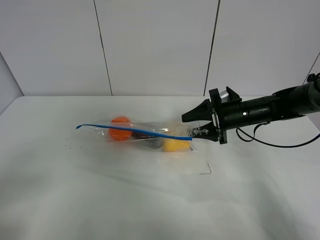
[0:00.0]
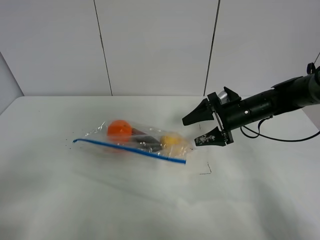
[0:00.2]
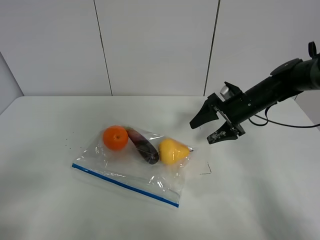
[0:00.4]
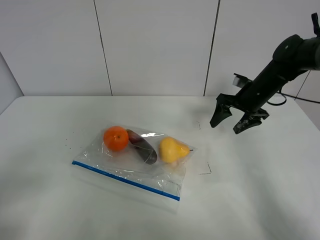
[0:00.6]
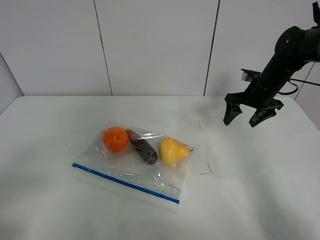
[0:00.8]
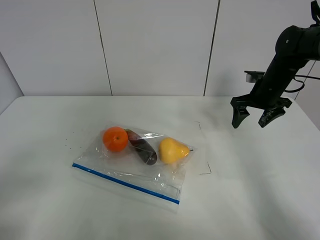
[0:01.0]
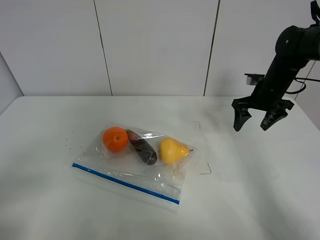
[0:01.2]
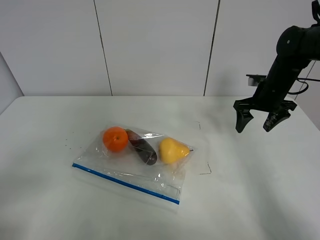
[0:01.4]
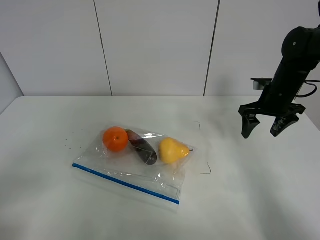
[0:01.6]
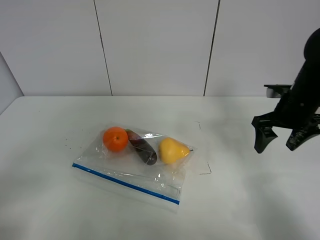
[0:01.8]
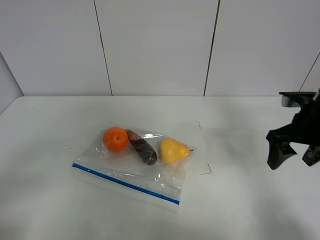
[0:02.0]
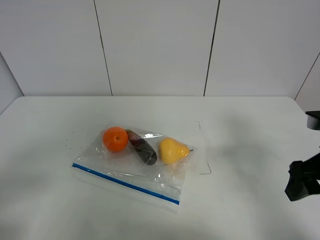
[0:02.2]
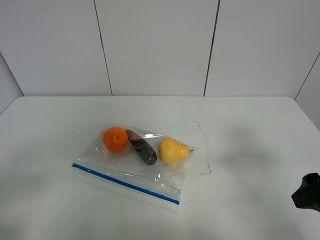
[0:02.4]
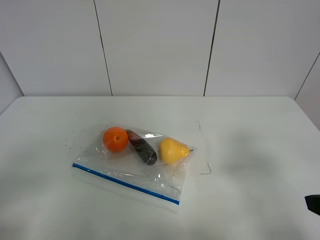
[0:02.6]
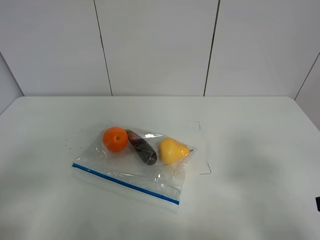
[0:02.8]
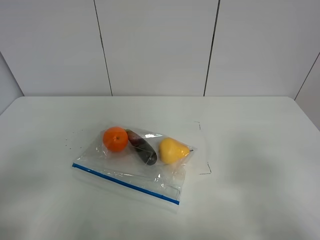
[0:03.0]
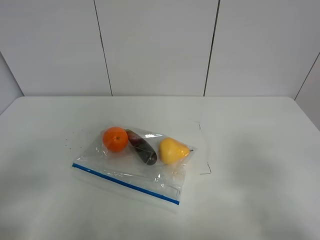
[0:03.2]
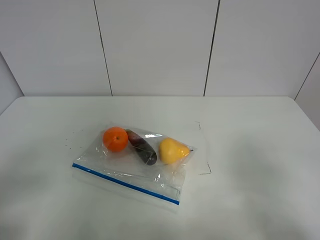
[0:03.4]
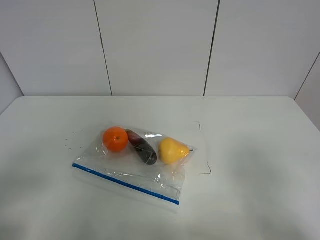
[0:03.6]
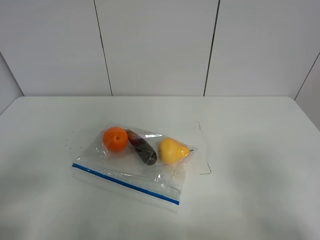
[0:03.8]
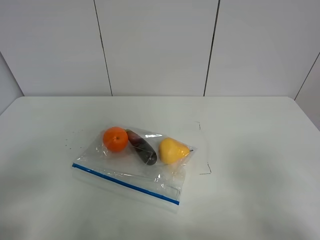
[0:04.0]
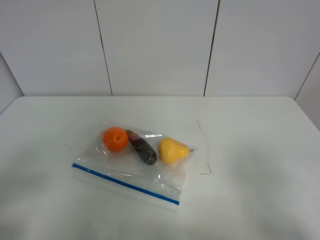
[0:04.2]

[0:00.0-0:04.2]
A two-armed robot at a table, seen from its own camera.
0:00.0 to 0:01.4: The right gripper goes about 10 cm to the right and upward.
0:01.4 to 0:02.8: The right gripper shifts about 35 cm backward.

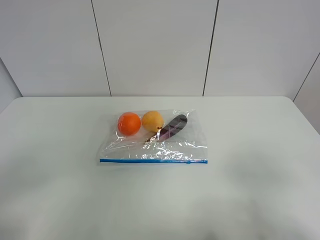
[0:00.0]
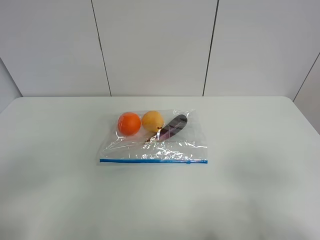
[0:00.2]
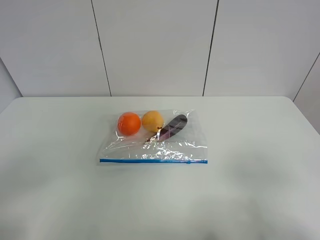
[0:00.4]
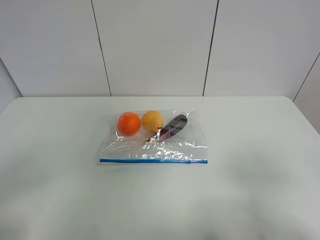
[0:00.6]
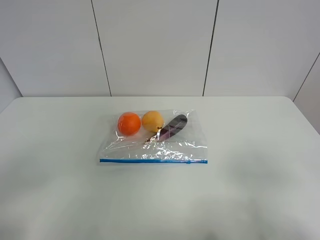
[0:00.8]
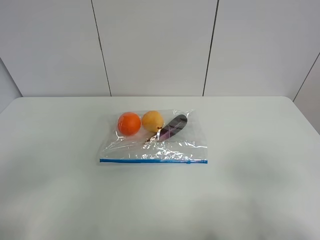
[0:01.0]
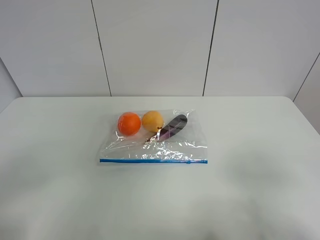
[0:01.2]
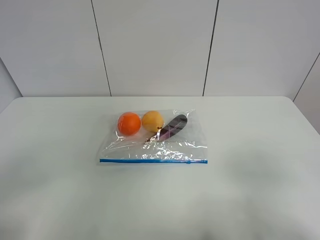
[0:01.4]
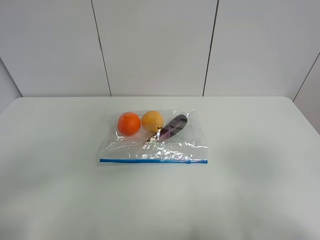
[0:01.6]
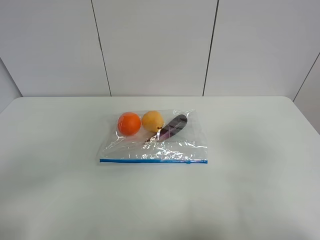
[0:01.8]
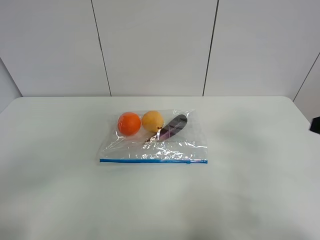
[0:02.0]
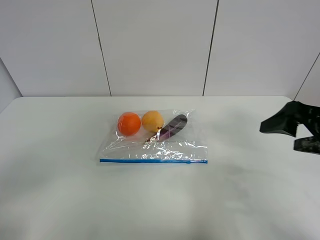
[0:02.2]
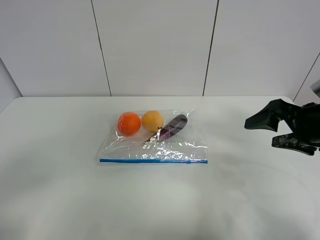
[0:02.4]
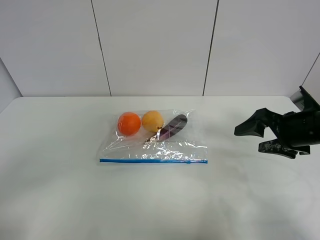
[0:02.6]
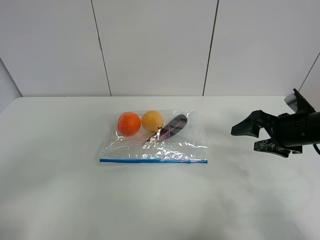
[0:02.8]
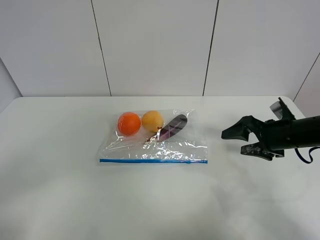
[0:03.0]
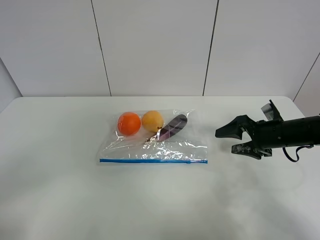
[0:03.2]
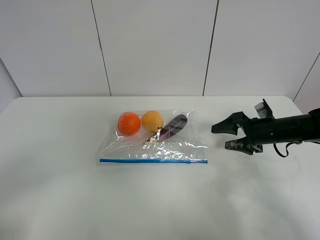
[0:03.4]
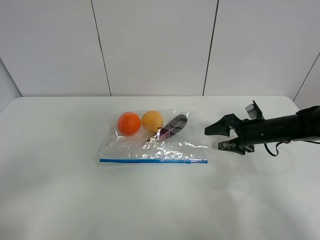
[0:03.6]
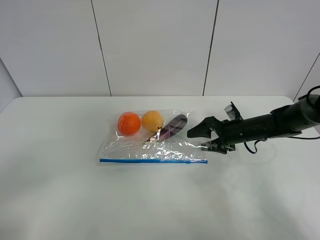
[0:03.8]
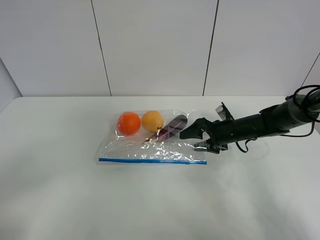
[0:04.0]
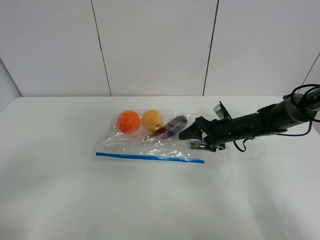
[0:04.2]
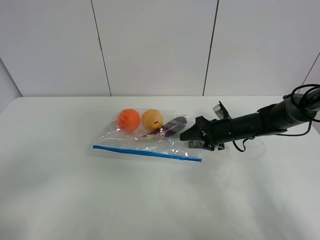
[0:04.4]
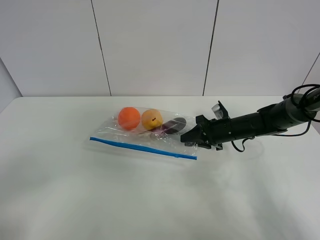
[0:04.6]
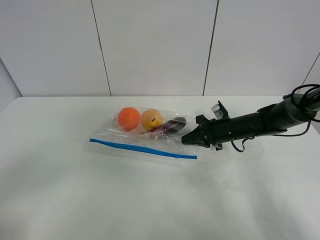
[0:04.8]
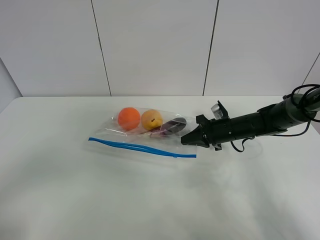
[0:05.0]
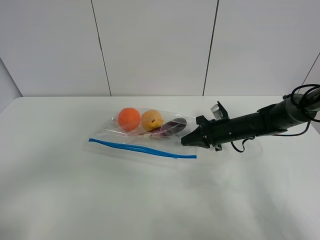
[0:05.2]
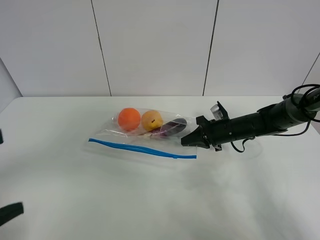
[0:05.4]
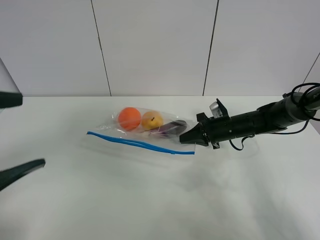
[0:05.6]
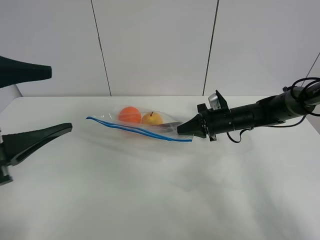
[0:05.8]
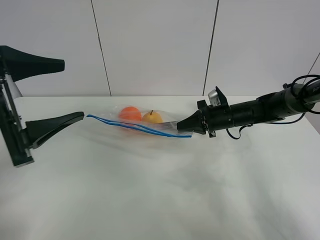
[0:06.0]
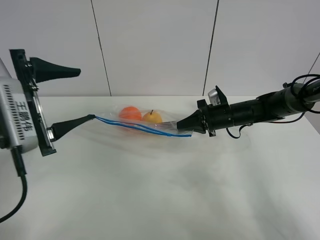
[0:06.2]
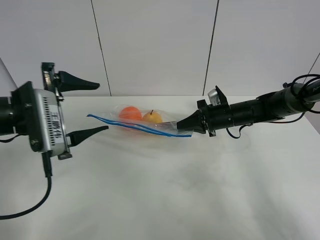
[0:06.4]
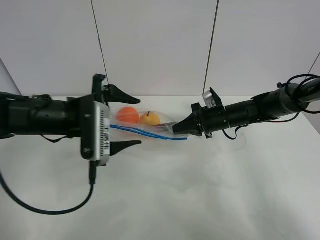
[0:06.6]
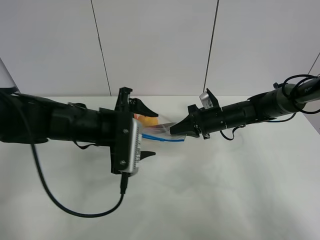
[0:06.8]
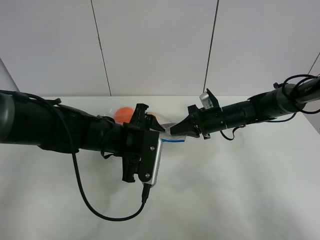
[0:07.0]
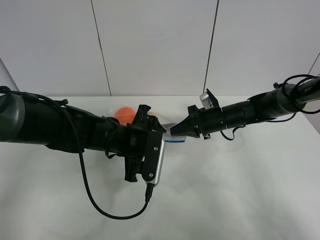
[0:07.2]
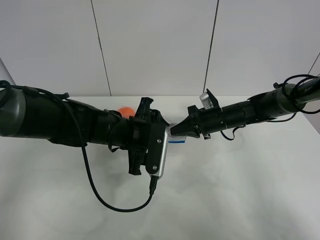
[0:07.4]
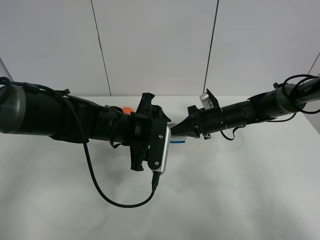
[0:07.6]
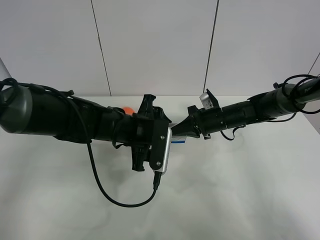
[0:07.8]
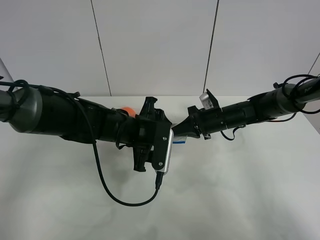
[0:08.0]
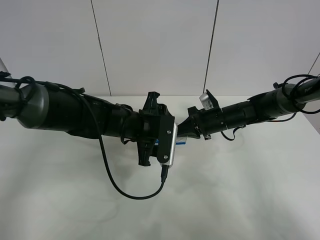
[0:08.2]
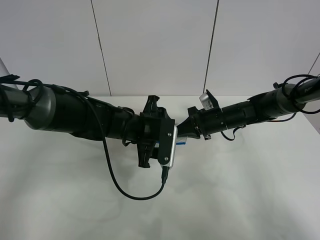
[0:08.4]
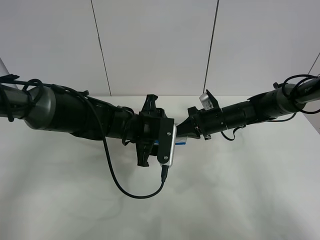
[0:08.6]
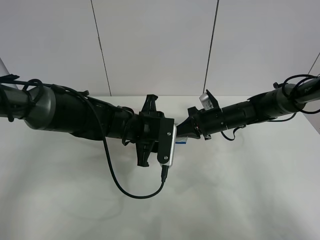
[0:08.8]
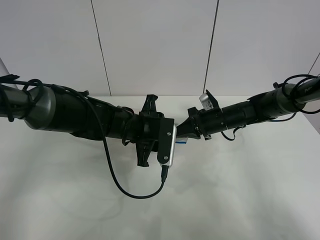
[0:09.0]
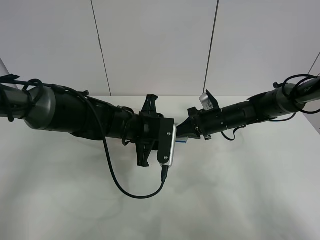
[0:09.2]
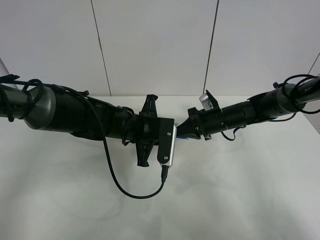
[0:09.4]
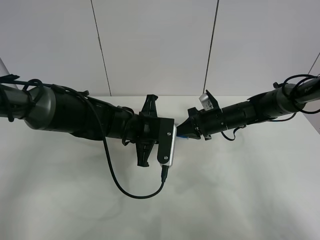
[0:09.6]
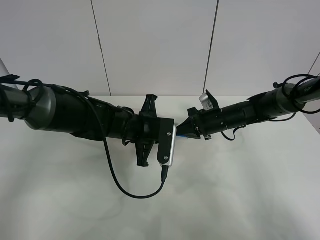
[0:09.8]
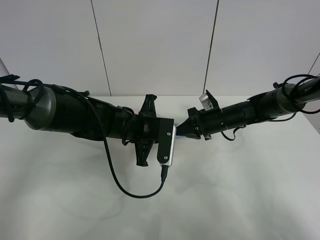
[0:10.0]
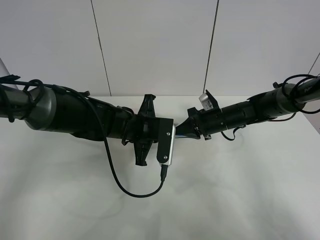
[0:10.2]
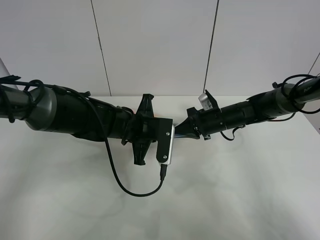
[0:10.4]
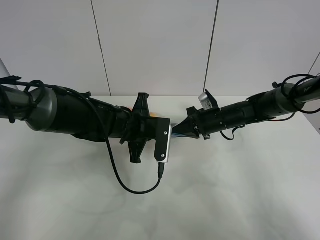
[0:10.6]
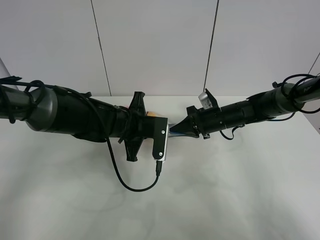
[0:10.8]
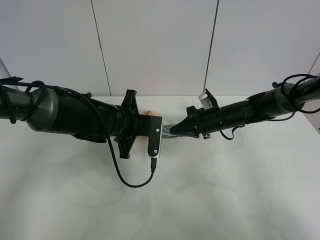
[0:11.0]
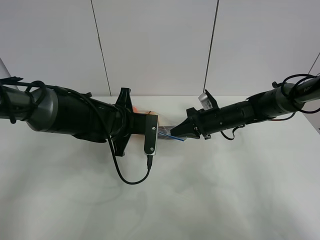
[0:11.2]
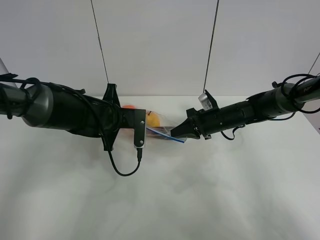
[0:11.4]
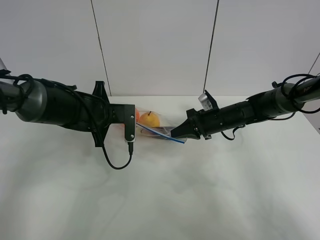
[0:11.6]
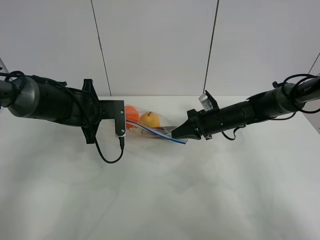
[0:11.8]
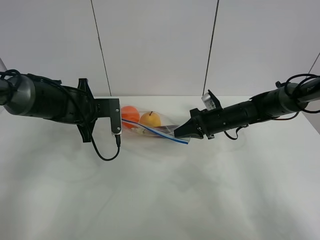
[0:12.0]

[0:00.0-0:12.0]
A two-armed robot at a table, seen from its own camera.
Step, 0:00.0 to 0:04.8: Grasp the fruit bag with right gripper.
Step, 0:05.0 to 0:06.0: Lift the fruit bag with your right gripper.
0:01.6 to 0:03.0: The right gripper travels forward and downward by some 30 cm.
0:03.0 to 0:04.4: The right gripper moves forward, to the left and downward, about 15 cm, and closes its fingers.
0:04.4 to 0:06.0: The left gripper is displaced forward by roughly 20 cm, while the right gripper closes.
0:06.0 to 0:07.6: The left gripper goes about 25 cm to the right, downward and forward.
0:07.6 to 0:09.0: The grippers make only small movements.
0:09.0 to 0:10.4: The left gripper closes its fingers.
0:10.4 to 0:12.0: The left gripper heads to the left, covering some 10 cm.

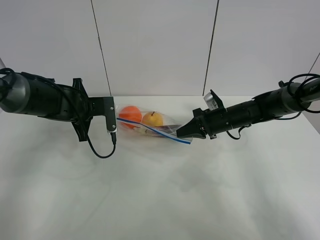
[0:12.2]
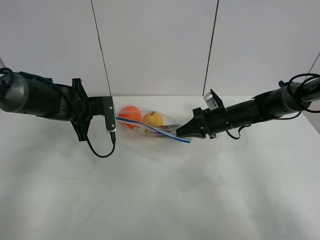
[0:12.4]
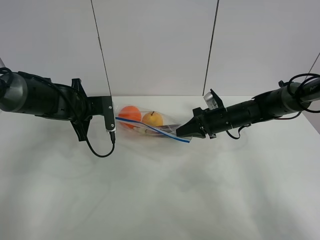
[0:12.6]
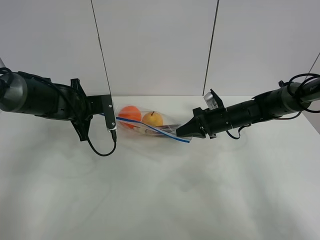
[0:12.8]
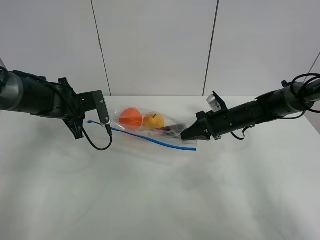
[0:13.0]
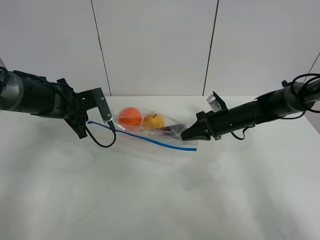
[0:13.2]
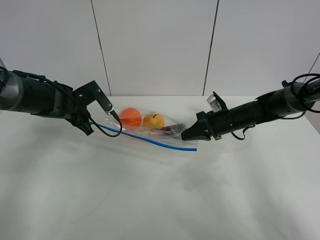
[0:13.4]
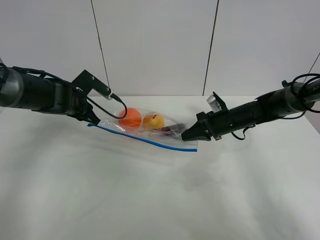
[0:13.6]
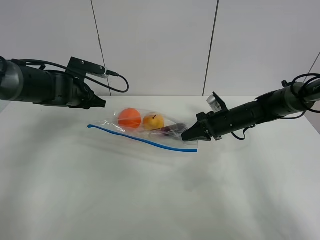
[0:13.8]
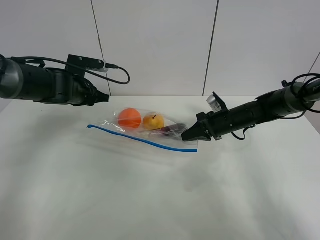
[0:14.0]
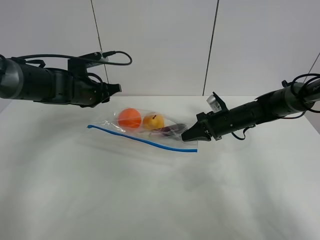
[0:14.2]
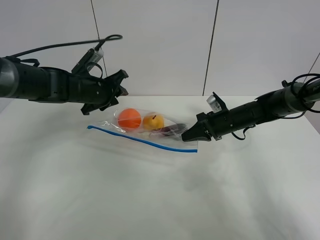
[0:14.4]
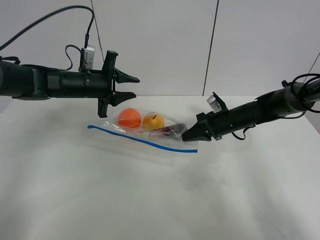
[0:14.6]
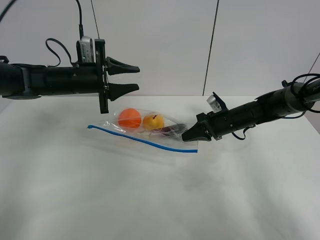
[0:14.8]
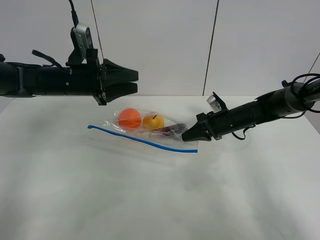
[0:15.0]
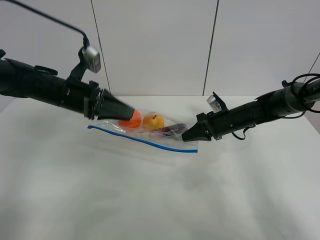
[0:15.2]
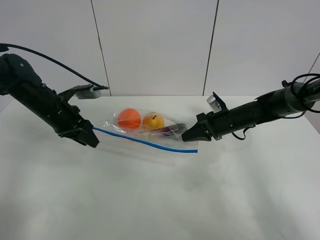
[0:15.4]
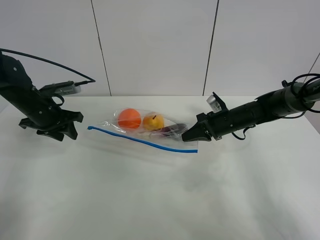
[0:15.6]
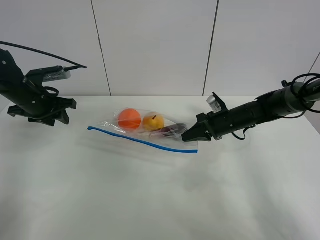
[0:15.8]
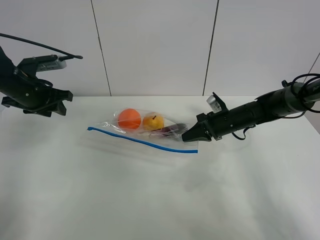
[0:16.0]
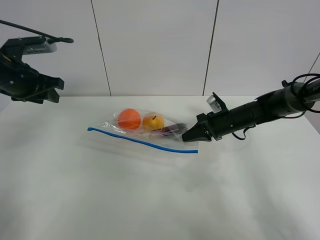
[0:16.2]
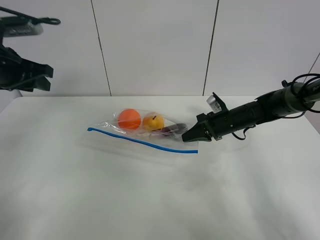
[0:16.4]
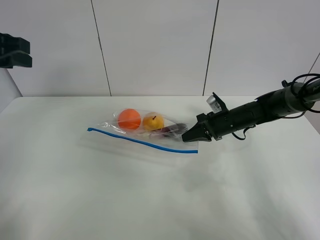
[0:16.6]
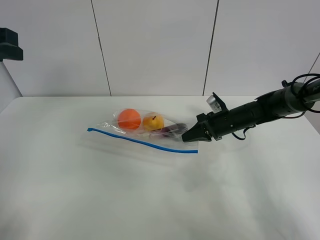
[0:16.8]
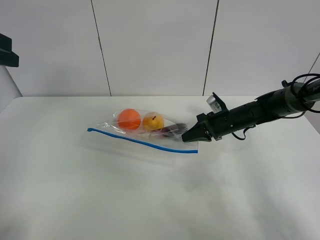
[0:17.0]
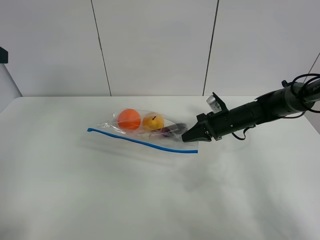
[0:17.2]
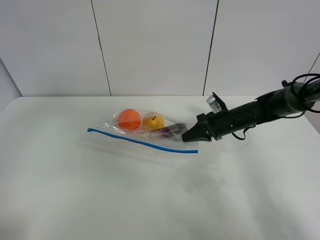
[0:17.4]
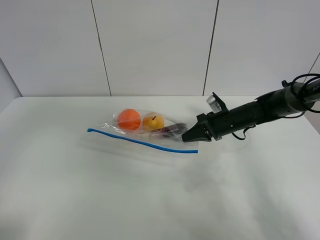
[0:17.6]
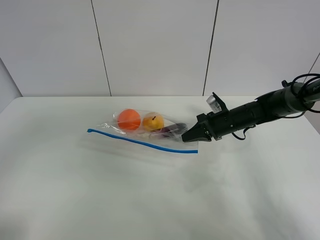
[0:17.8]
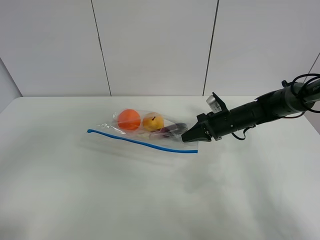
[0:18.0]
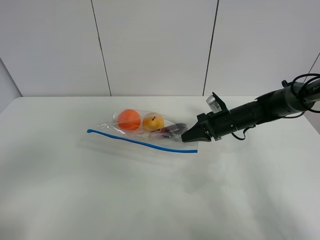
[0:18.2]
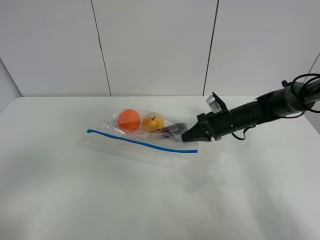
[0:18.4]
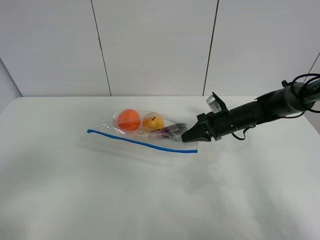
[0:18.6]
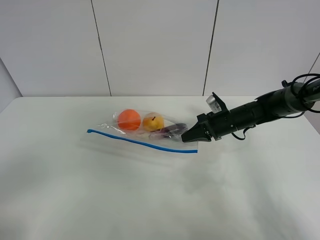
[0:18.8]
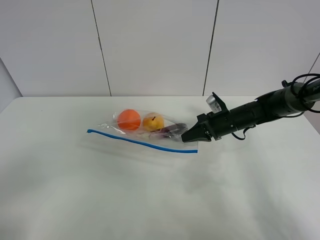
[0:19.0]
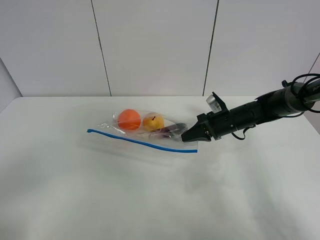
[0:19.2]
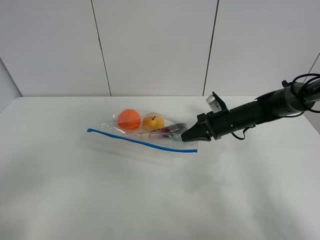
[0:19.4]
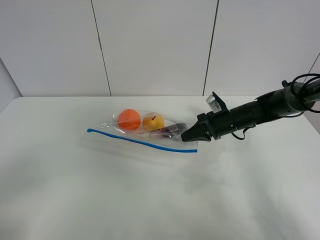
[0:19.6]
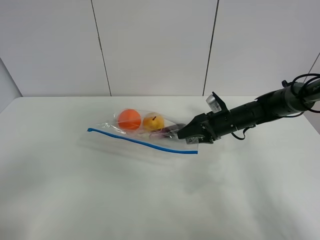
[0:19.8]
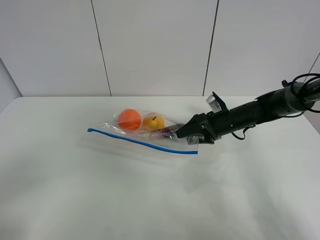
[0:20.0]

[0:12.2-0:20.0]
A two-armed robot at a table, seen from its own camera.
0:12.2 to 0:13.8: The left gripper opens its fingers.
0:13.8 to 0:15.4: The left gripper moves approximately 5 cm.
0:15.4 to 0:16.8: The left gripper is displaced upward and backward by some 25 cm.
0:16.8 to 0:18.4: The left gripper moves backward, roughly 30 cm.
0:18.4 to 0:20.0: The right gripper opens up.
